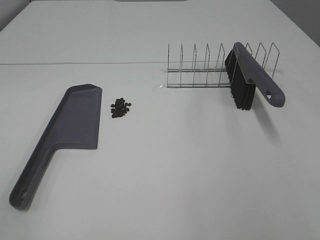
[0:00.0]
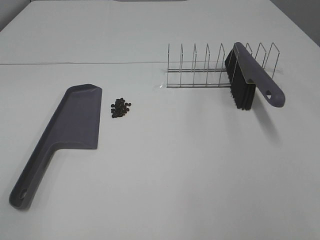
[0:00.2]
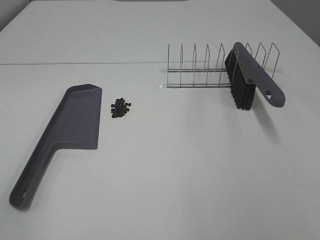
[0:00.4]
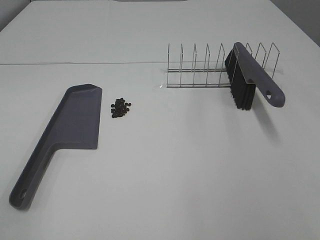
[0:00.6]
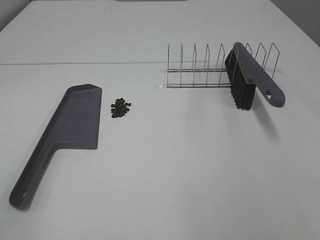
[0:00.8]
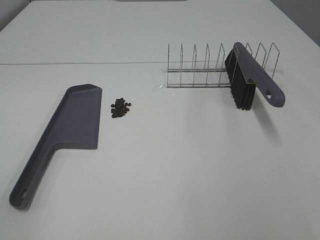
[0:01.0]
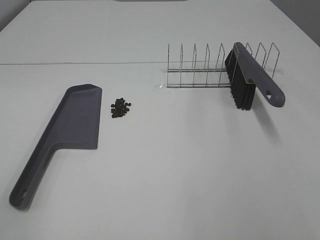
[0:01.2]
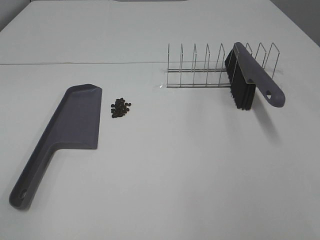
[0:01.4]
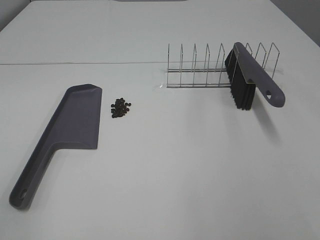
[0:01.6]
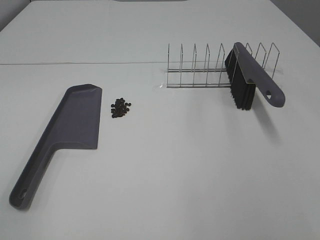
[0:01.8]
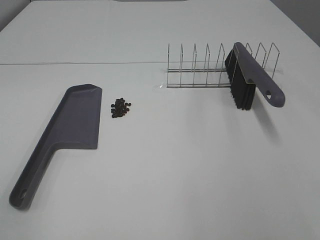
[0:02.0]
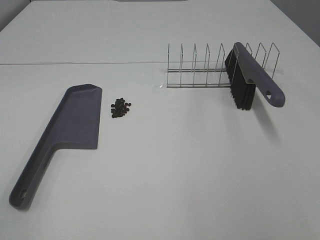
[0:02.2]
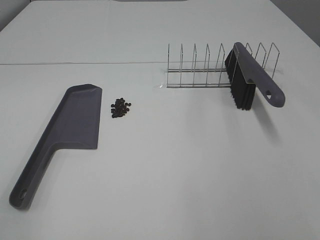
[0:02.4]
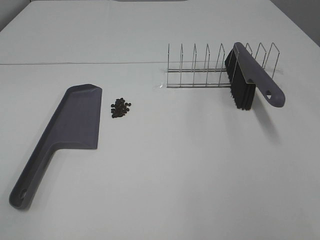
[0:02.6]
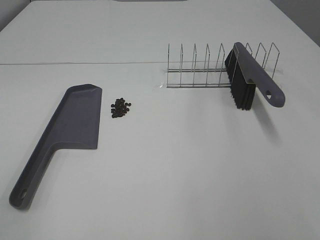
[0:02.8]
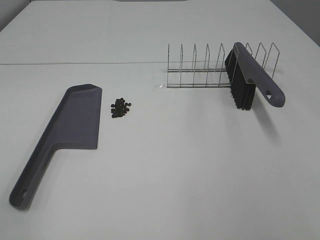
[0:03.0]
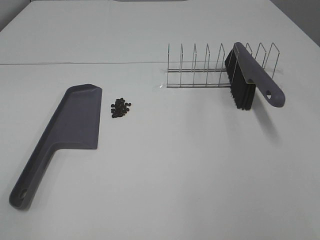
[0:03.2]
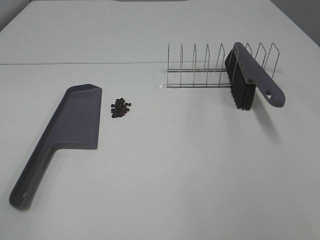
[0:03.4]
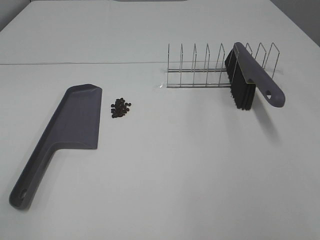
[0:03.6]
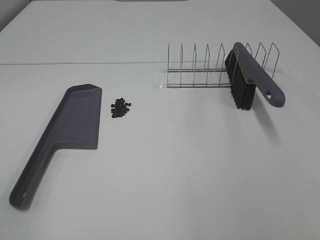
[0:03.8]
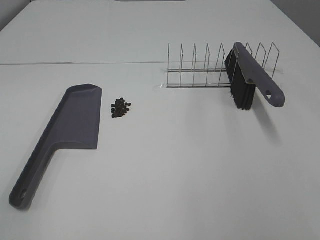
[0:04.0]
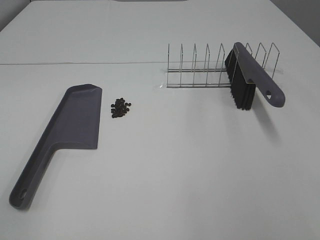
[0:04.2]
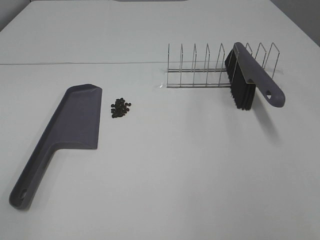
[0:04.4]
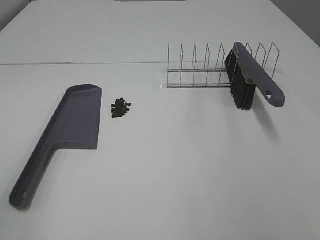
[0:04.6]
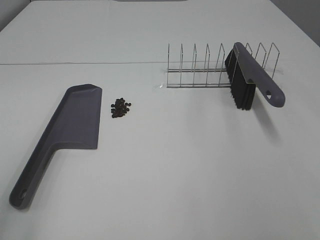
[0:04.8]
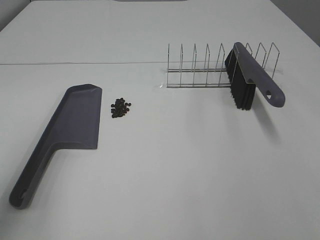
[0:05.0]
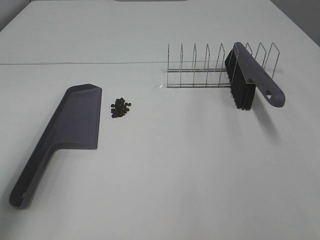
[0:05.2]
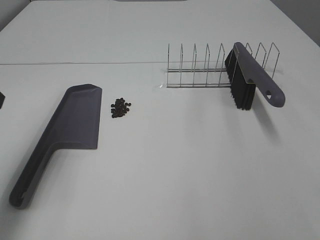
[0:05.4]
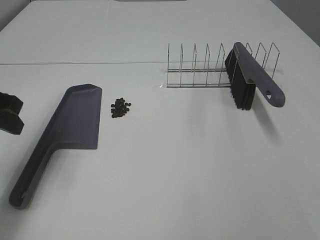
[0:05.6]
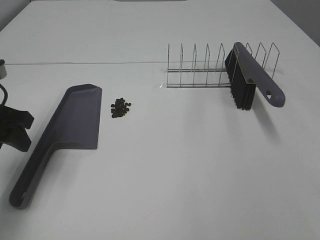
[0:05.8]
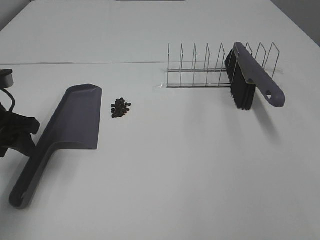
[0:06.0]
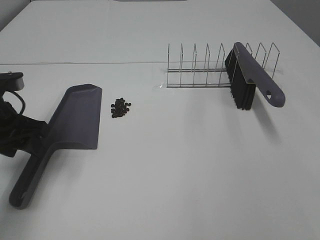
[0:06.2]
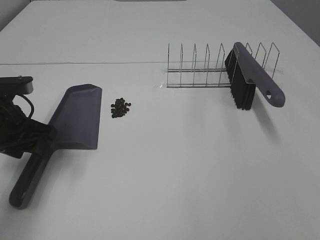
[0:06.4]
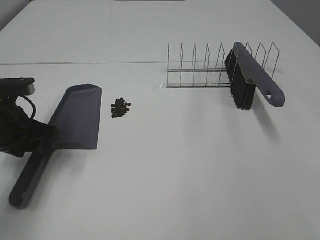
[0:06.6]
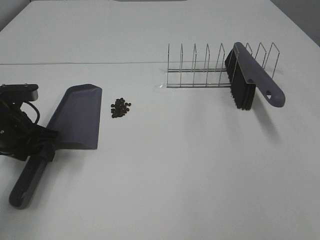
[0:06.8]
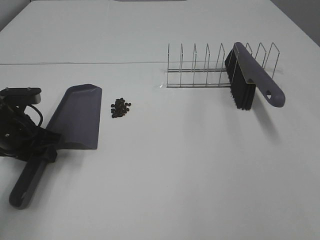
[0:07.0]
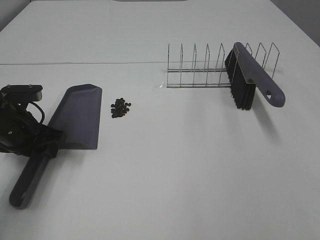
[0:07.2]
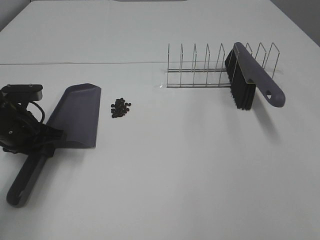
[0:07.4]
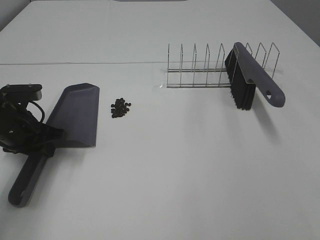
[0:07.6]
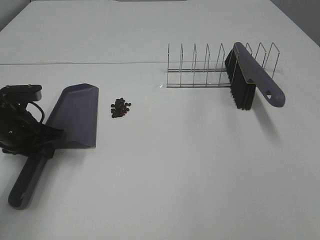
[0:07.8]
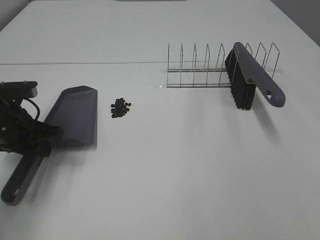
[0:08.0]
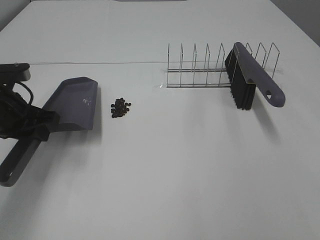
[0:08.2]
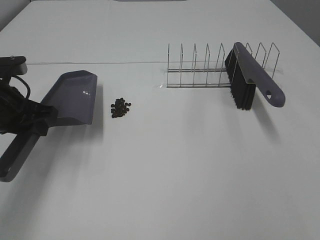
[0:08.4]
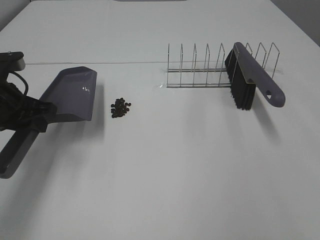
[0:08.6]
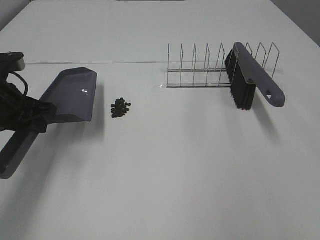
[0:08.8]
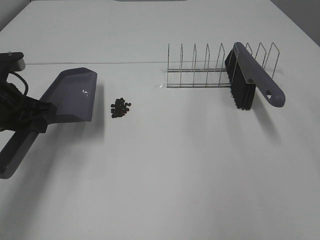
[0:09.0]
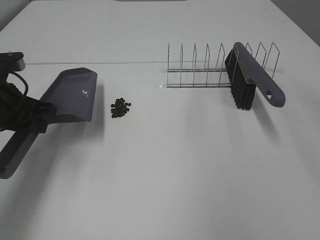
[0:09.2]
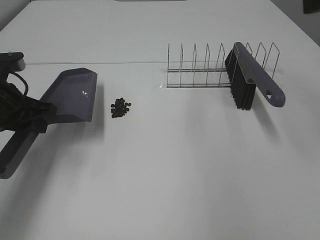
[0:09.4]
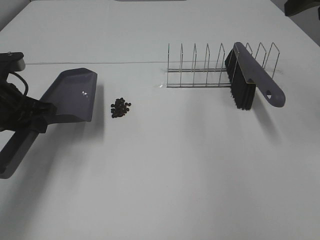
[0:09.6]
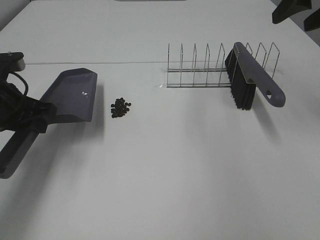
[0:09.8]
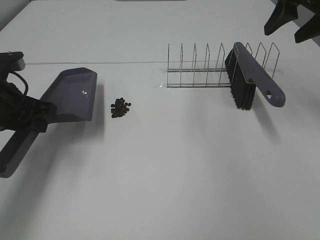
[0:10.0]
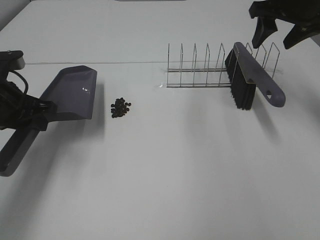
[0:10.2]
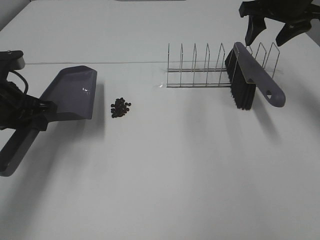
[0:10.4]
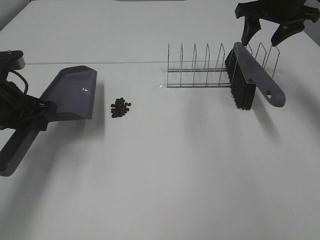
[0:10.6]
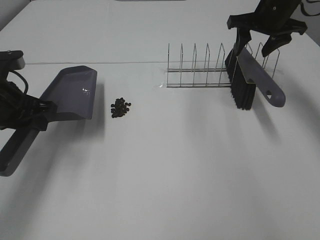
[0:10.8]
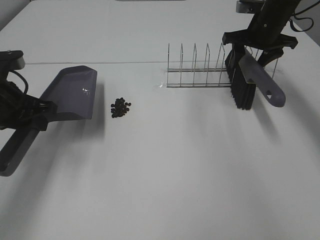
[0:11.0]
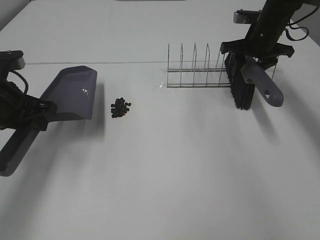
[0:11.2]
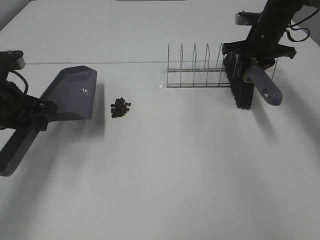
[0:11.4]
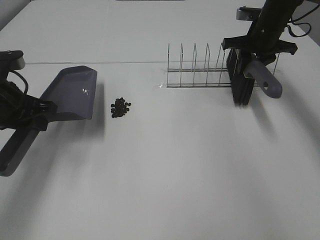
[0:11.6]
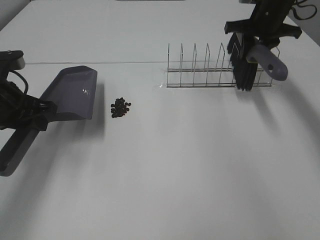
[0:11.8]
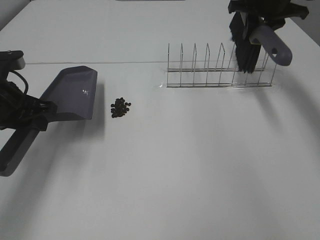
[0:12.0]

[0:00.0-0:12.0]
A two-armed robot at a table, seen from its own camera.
Task of the whole recording: Sweep Coffee Bean.
Step, 0:00.0 to 0:07.2: Left hand: grab the dustpan.
Step, 0:08.4 to 0:11.4: Right hand:grab the broom.
0:00.0 to 0:04.4: Both grippers stay put.
0:04.4 to 0:06.0: The left gripper heads forward and downward, covering roughly 30 cm.
0:06.0 to 0:07.6: The left gripper moves downward, some 5 cm, and closes.
0:07.6 to 0:09.0: The left gripper goes about 5 cm upward.
0:09.0 to 0:10.4: The right gripper is displaced forward by roughly 30 cm.
0:10.4 to 0:12.0: The right gripper shifts roughly 5 cm forward, reaches approximately 10 cm downward, then returns, and closes up.

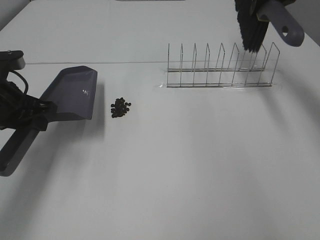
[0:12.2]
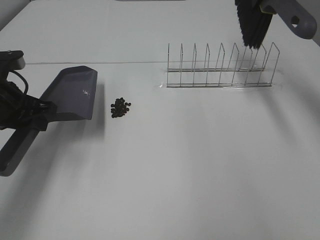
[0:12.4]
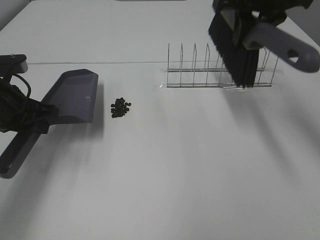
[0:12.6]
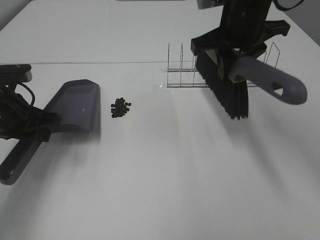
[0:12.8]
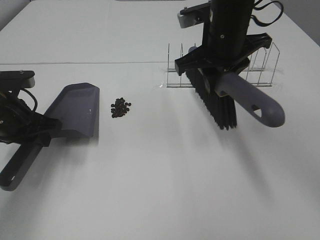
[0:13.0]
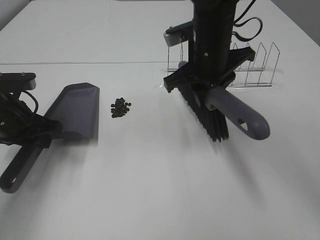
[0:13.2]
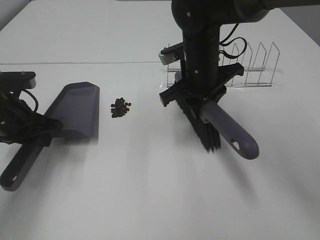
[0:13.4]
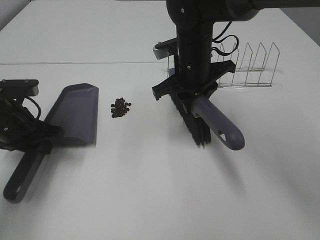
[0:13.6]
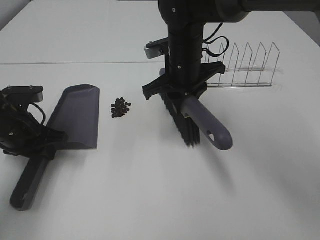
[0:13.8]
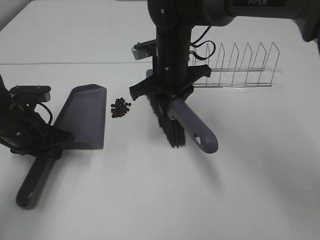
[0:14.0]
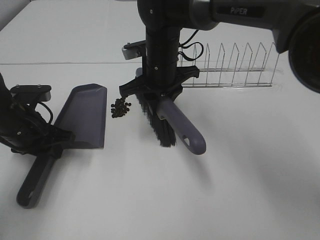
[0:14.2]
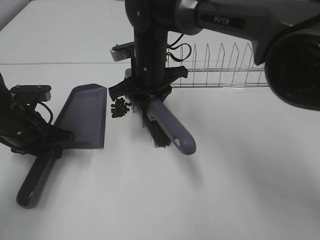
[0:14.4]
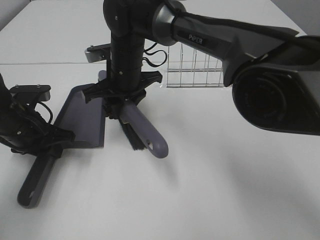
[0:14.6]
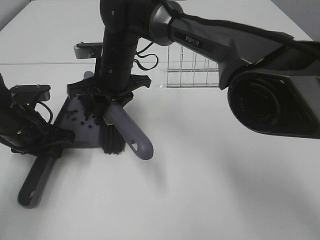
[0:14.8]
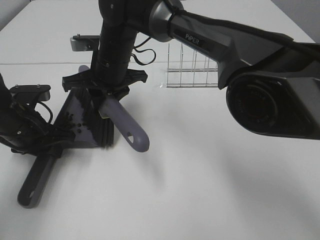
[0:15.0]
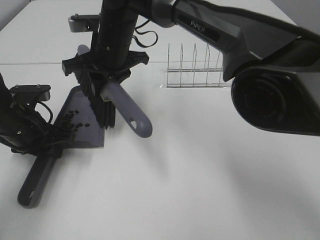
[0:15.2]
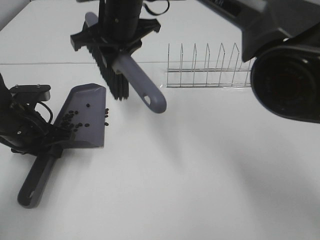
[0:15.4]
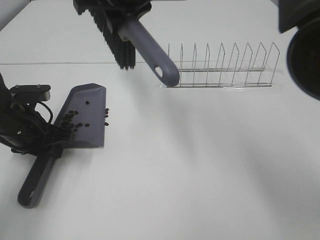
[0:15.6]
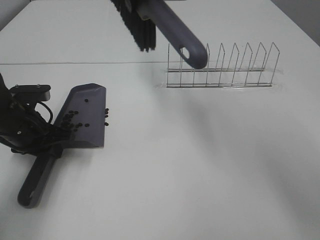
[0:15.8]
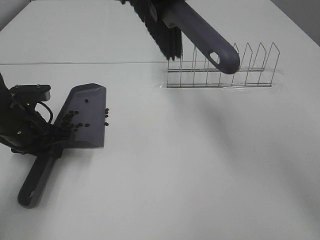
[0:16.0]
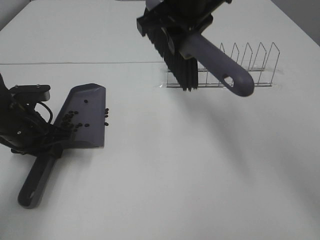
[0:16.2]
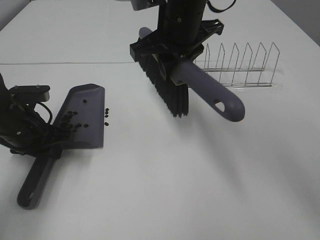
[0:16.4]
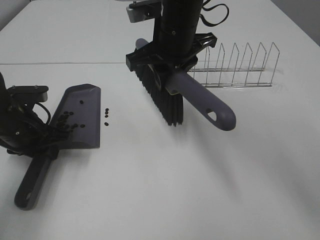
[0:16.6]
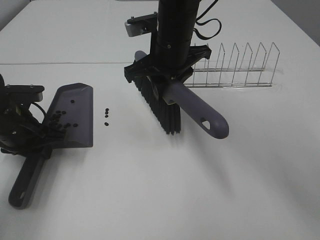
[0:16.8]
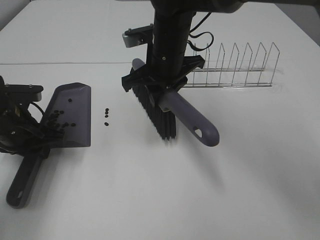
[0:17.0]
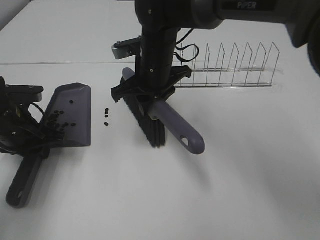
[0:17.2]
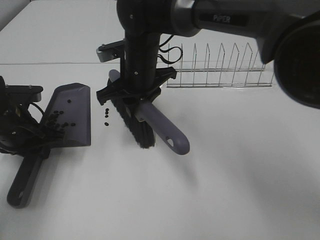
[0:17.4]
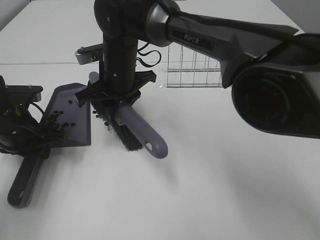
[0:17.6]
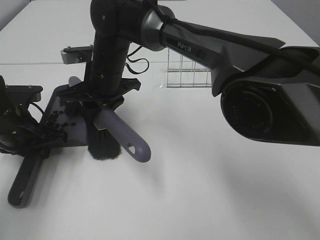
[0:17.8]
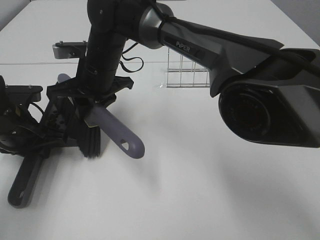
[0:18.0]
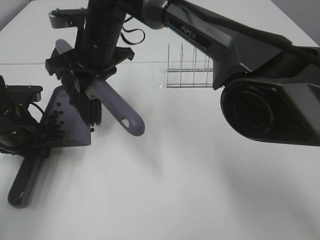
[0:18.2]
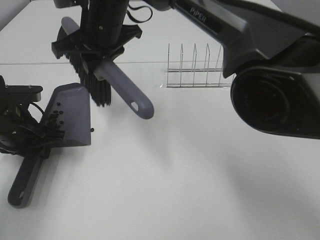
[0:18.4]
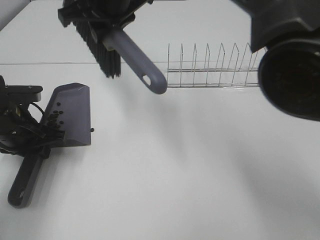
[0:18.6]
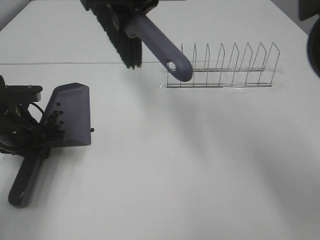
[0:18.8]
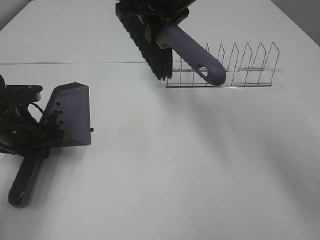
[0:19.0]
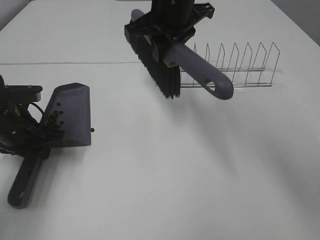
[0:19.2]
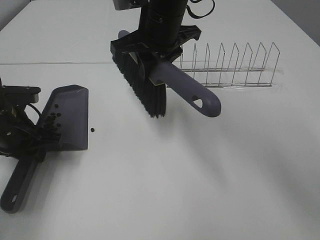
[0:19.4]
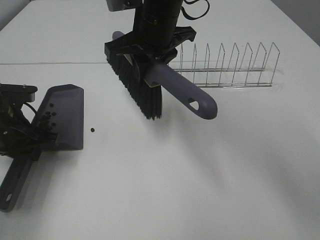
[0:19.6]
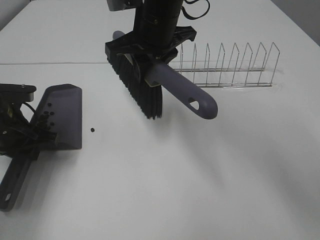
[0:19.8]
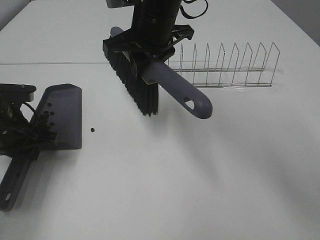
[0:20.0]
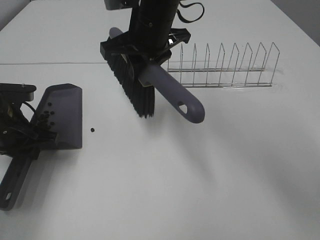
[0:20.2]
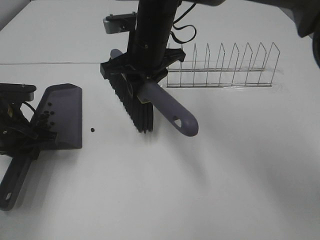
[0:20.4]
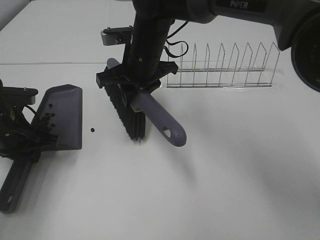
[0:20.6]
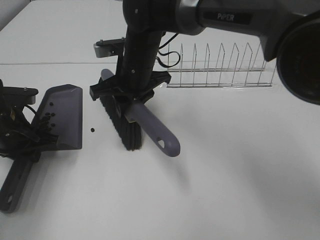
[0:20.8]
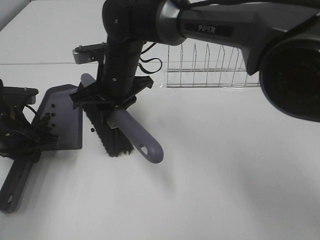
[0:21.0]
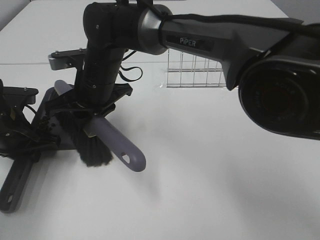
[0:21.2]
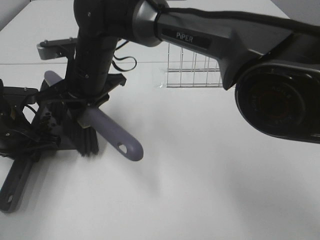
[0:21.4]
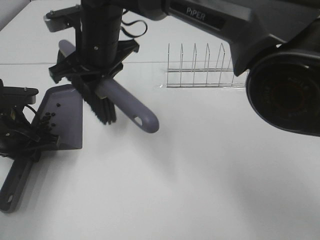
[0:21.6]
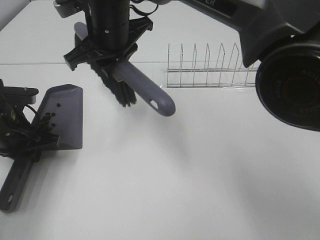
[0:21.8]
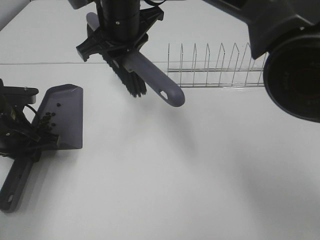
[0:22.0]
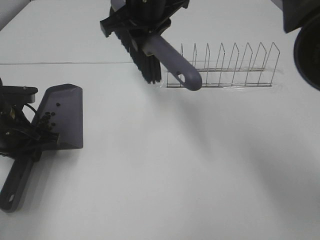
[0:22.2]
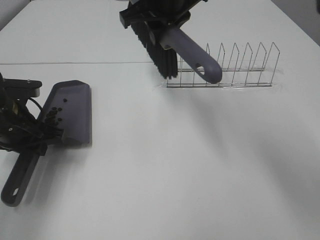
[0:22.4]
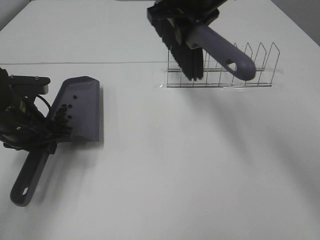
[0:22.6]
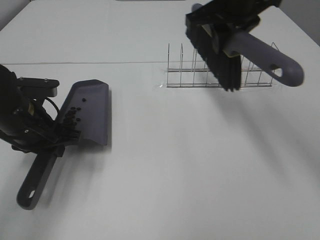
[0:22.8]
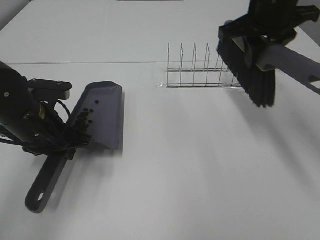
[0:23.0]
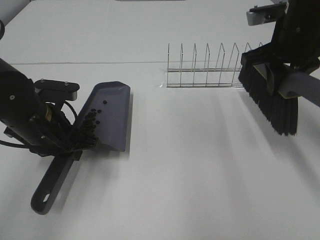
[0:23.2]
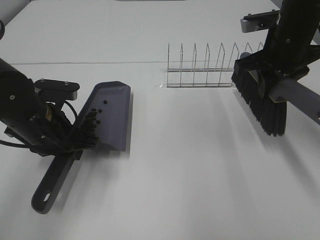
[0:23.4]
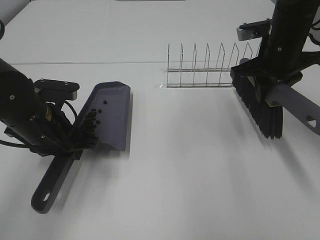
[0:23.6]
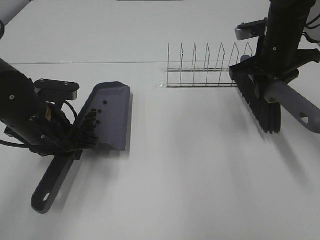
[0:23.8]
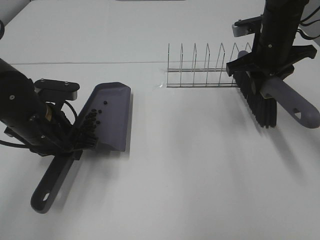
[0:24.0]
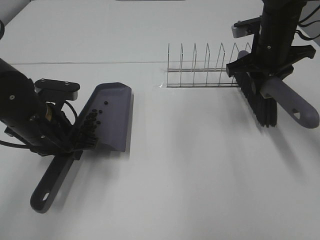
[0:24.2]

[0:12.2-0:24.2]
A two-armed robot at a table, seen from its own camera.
Task of the whole recording: Sweep Coffee Bean.
Step, 0:12.2 to 0:21.4: Right hand:sweep the coffee beans into the dustpan.
0:12.2 to 0:13.8: The right gripper travels to the left, downward and backward by roughly 25 cm, while the left gripper heads downward, covering some 5 cm.
0:13.8 to 0:15.2: The right gripper moves to the left, approximately 10 cm.
0:15.2 to 0:16.6: The right gripper heads to the right, covering roughly 10 cm, and goes upward and returns, some 15 cm each way.
0:16.6 to 0:18.2: The right gripper shifts approximately 10 cm to the left.
0:18.2 to 0:19.8: The right gripper travels to the right by roughly 10 cm.
0:19.8 to 0:21.2: The right gripper is displaced to the left and downward by some 15 cm.
0:21.2 to 0:22.6: The right gripper goes about 20 cm to the right and upward.
0:22.6 to 0:24.2: The right gripper travels to the right and downward by approximately 15 cm.
